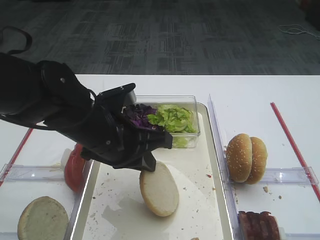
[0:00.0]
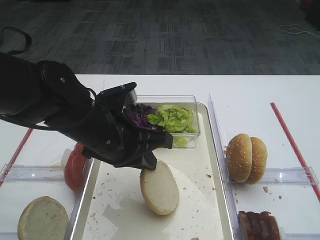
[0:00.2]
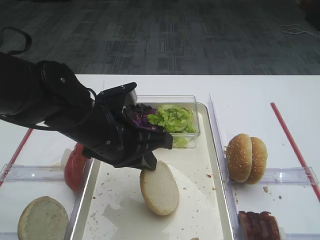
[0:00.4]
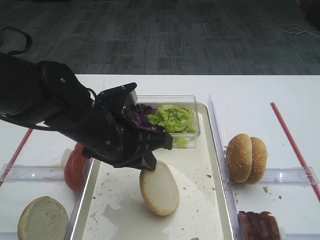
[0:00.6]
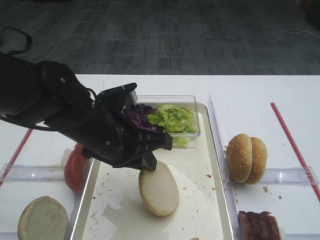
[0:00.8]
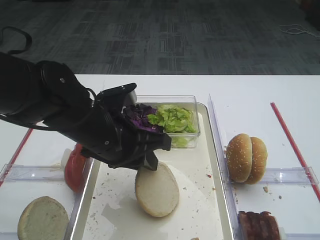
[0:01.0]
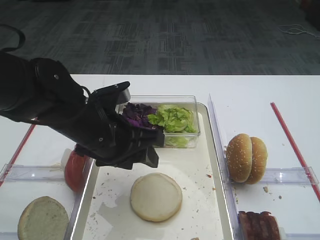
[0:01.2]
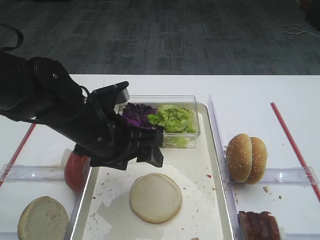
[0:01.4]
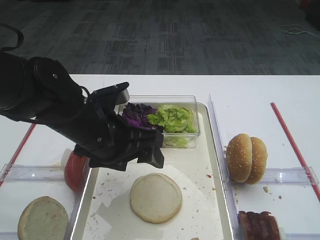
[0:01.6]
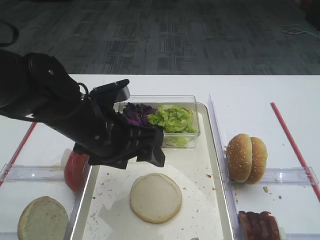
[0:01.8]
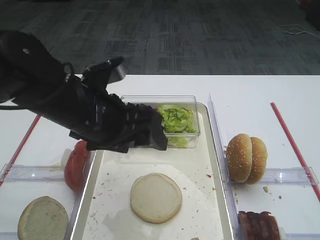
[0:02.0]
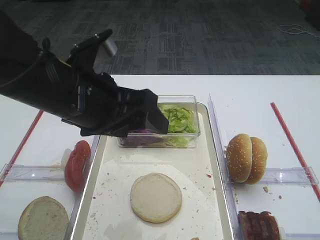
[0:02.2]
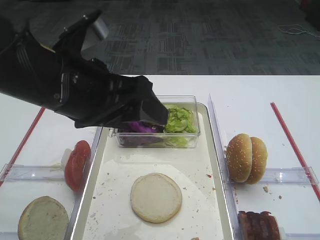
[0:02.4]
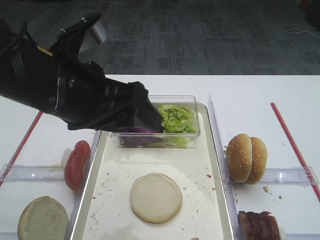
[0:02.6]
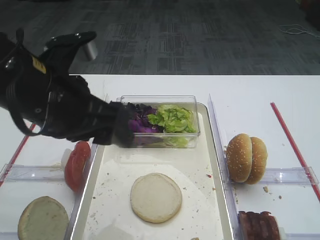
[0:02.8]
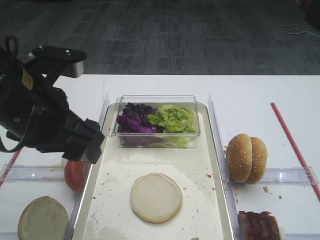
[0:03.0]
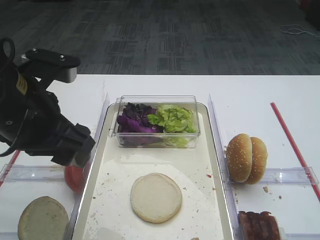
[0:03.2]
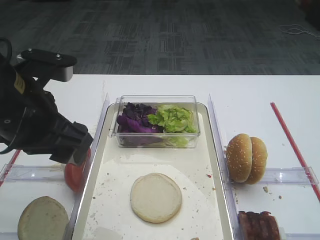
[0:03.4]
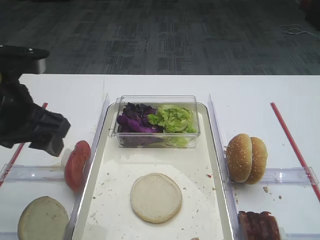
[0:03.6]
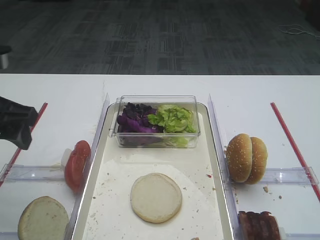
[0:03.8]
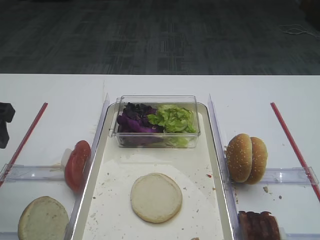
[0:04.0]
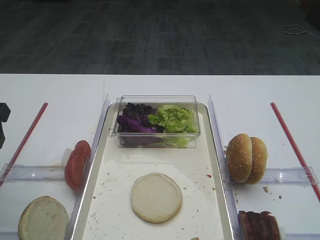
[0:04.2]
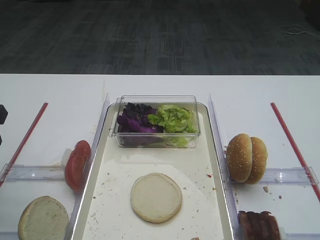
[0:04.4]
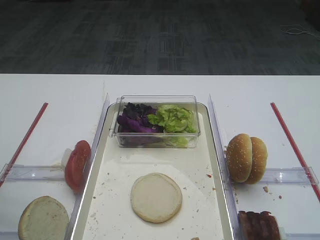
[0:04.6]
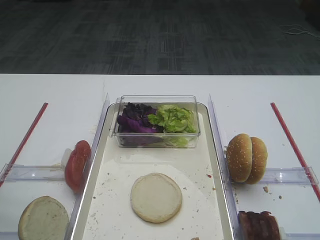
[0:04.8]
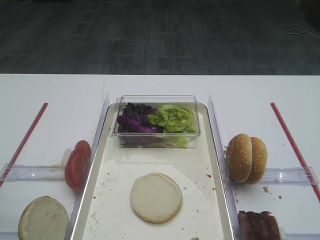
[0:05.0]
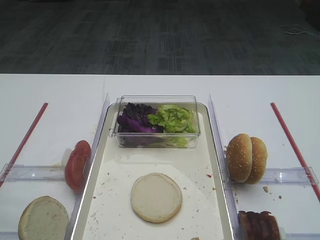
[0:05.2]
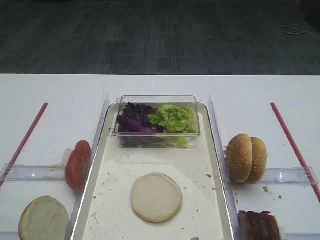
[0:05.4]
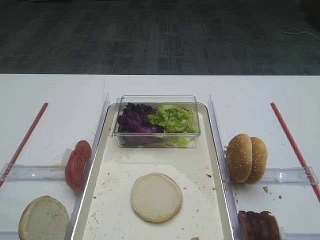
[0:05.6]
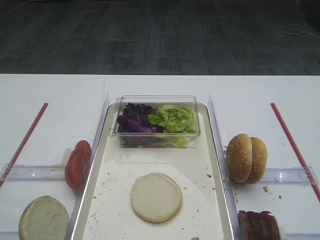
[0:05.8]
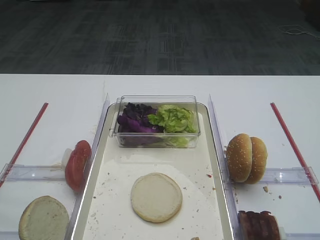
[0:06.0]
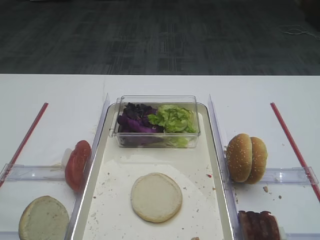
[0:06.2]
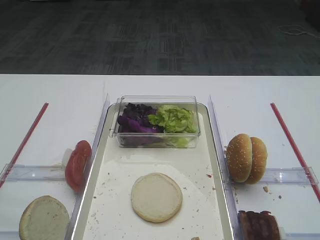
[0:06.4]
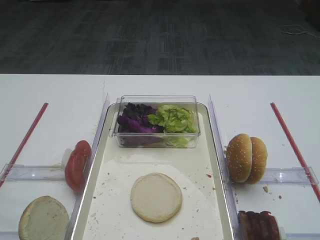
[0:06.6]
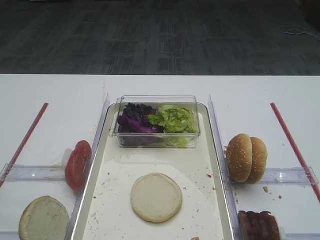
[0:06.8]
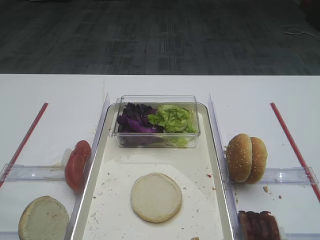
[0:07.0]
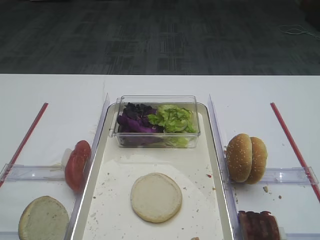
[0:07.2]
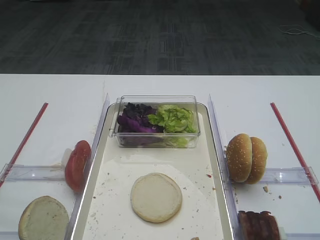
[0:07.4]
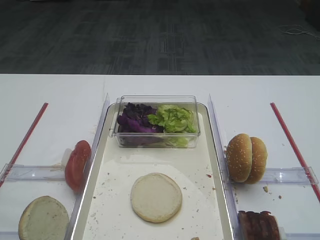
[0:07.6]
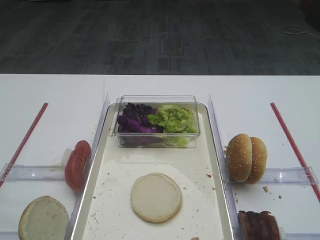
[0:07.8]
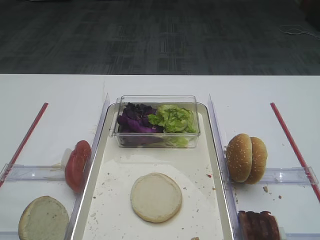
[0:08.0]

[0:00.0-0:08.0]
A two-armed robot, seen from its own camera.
Step, 0.0 to 2.4 s: Place the bread slice on the tray with the left gripper.
0.0 to 1.6 s: The left gripper opens up.
1.6 to 3.2 s: The left gripper is displaced upward and to the left by approximately 10 cm.
3.2 to 4.8 s: The left gripper travels to the left by approximately 15 cm.
4.8 to 6.4 s: The left gripper shifts approximately 20 cm backward.
6.4 to 8.0 s: Both grippers stay about where they are.

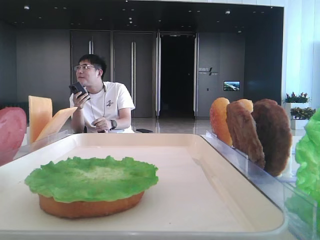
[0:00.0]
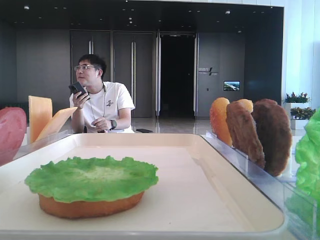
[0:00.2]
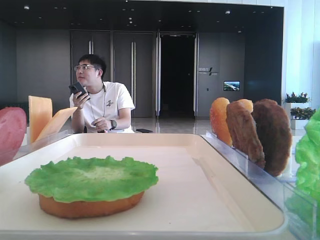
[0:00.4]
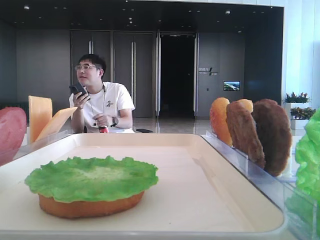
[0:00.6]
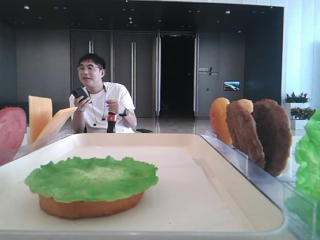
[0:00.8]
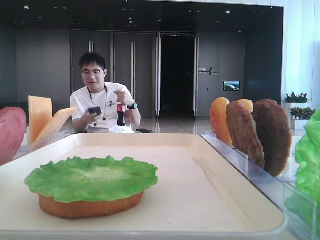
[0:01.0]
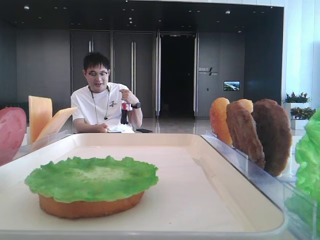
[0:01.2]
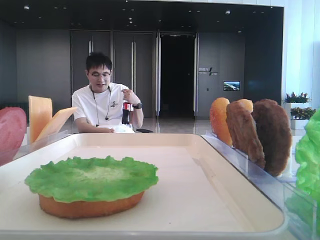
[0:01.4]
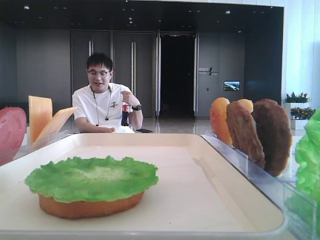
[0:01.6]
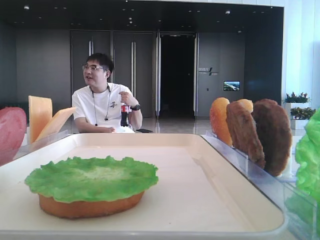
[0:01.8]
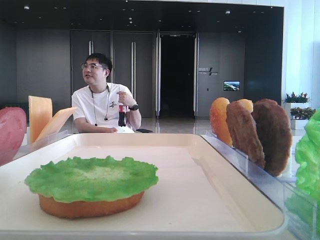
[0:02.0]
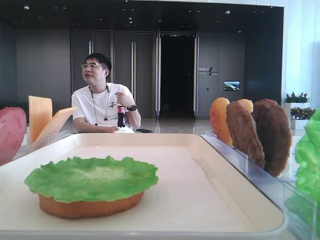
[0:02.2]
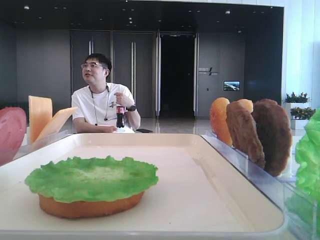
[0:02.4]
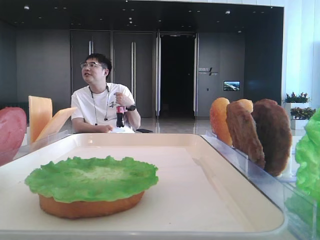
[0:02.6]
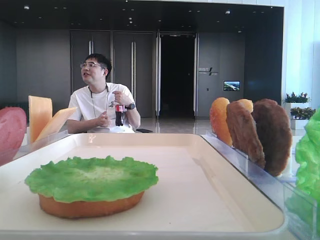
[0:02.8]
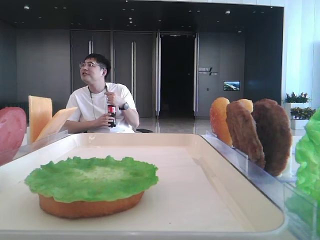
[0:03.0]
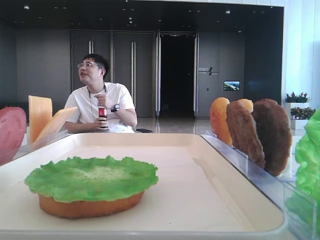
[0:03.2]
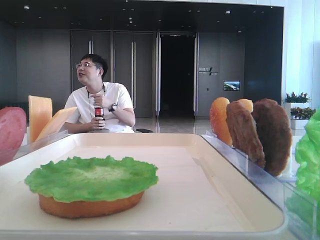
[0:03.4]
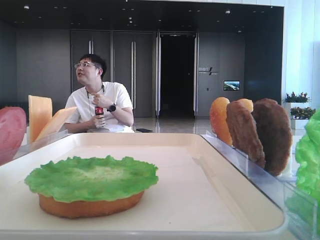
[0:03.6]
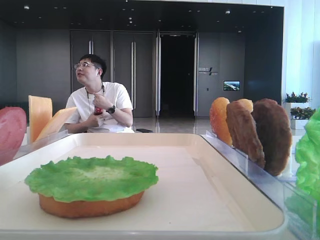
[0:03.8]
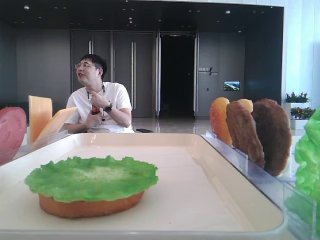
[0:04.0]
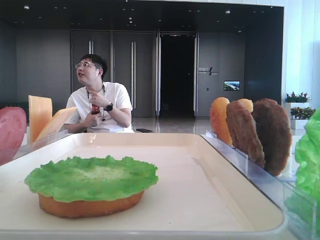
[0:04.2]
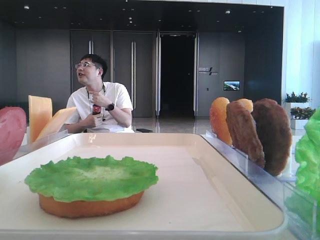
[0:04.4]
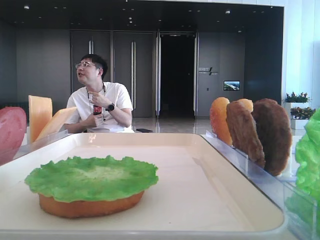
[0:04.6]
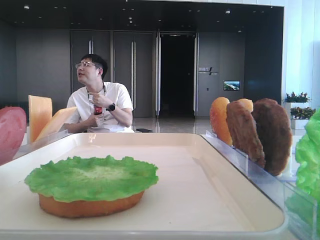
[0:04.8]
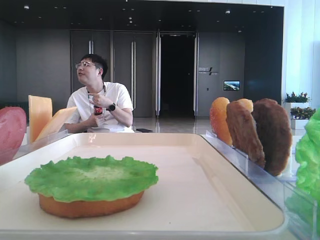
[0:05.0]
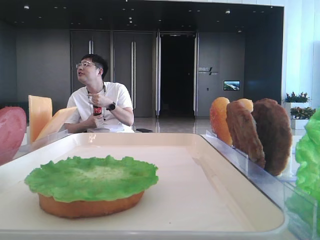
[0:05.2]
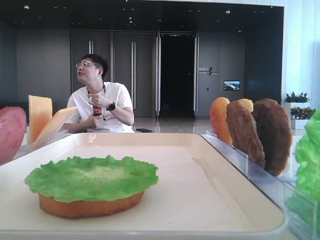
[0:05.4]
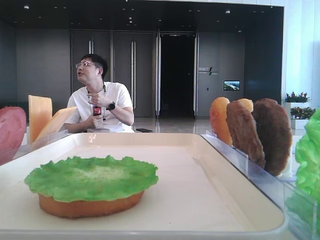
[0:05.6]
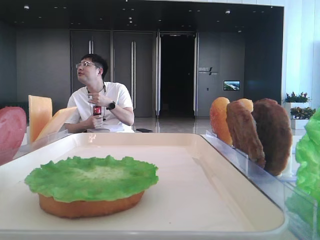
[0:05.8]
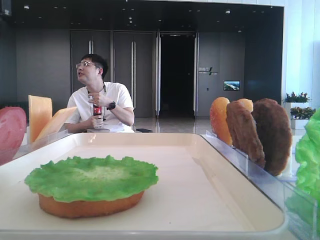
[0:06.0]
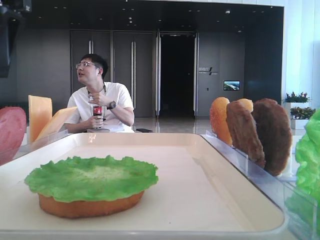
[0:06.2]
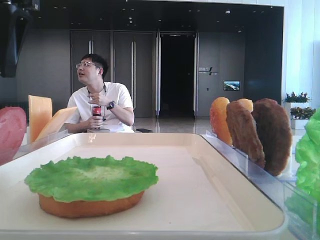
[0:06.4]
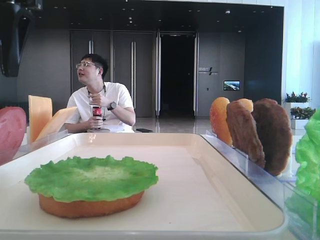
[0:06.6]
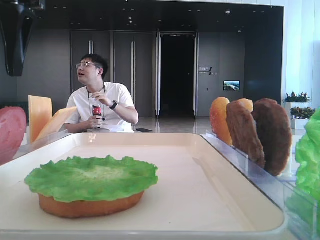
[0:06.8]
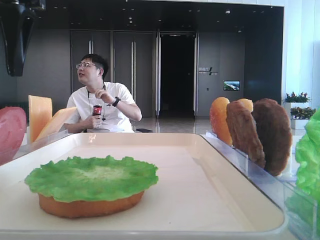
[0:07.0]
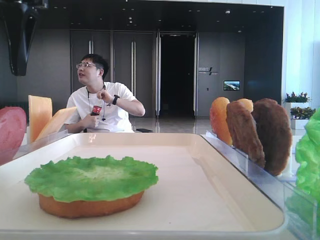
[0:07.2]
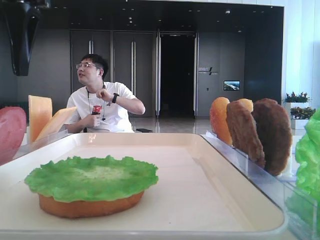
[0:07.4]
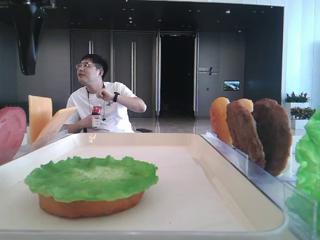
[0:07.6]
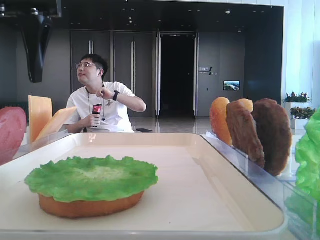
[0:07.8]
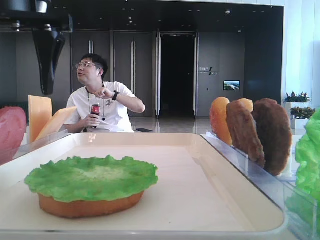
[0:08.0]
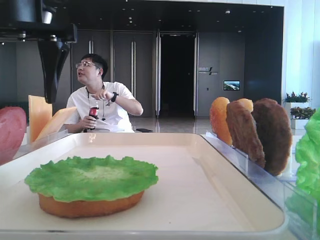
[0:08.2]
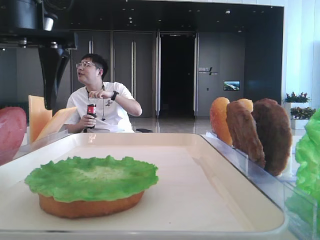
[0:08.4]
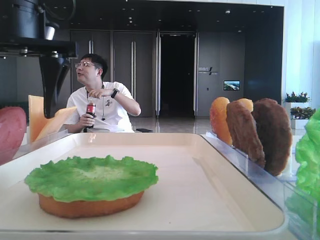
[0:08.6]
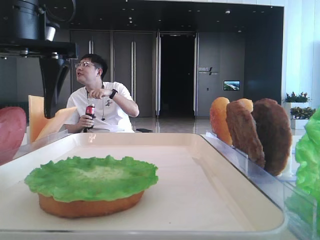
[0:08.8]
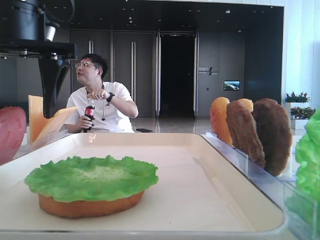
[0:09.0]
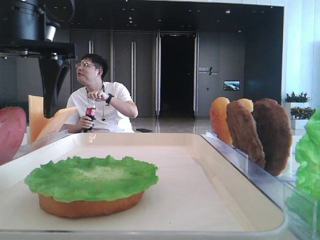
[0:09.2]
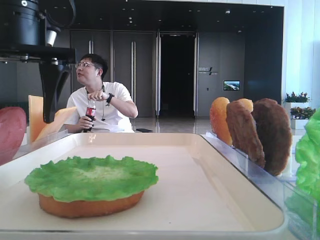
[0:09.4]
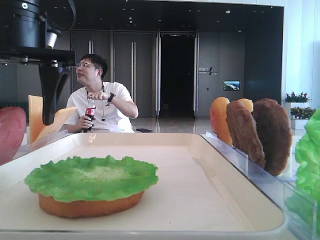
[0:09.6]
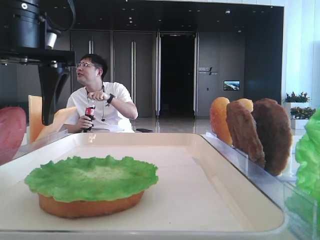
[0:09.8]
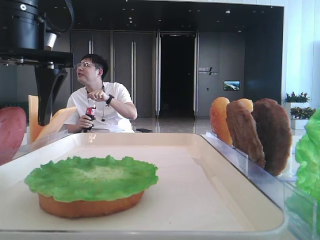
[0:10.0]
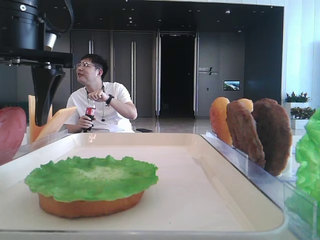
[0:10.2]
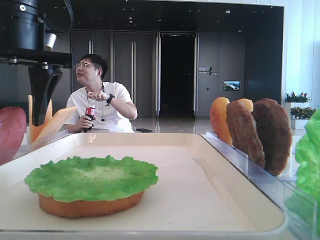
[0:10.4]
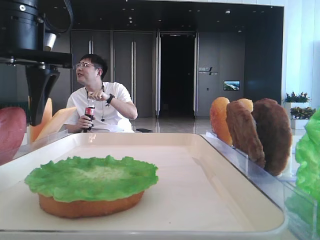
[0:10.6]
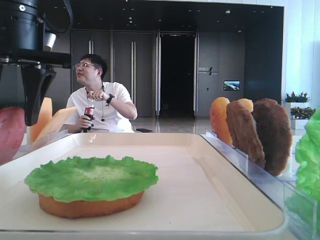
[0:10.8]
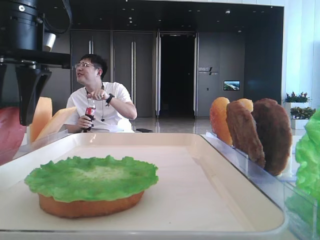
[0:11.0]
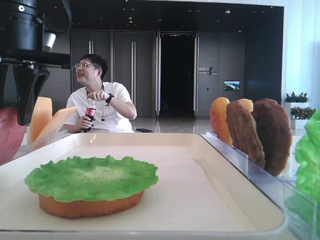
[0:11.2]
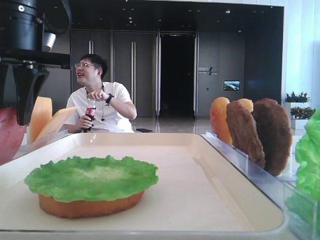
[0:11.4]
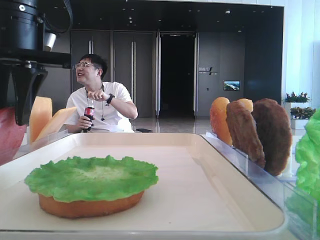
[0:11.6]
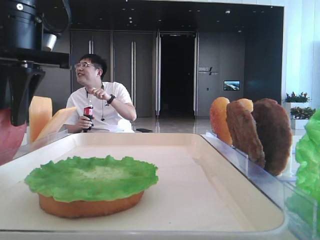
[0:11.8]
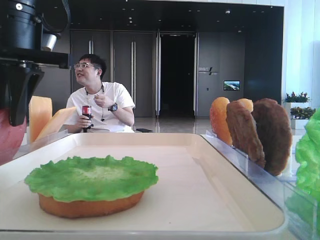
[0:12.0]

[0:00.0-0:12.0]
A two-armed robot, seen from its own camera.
1.6 to 3.0 s: The left gripper shifts roughly 10 cm forward.
3.0 to 4.4 s: The left gripper moves forward, roughly 20 cm.
4.4 to 6.0 s: The left gripper goes roughly 10 cm to the right.
6.0 to 7.6 s: The grippers move only a little.
7.6 to 9.0 s: The left gripper moves approximately 5 cm.
9.0 to 10.4 s: Both grippers stay about where they are.
10.4 to 12.0 s: The left gripper closes its fingers.

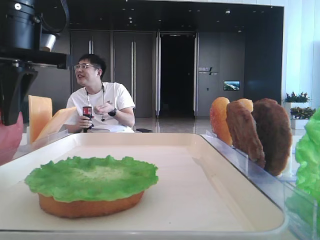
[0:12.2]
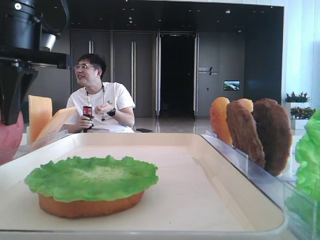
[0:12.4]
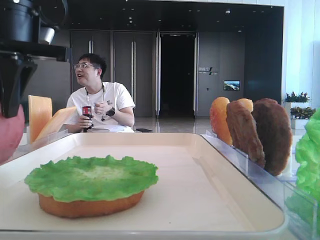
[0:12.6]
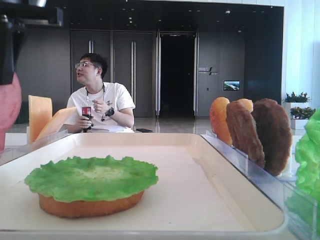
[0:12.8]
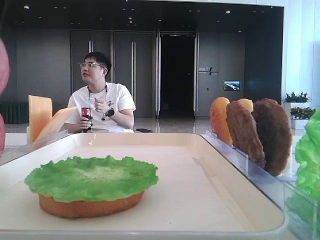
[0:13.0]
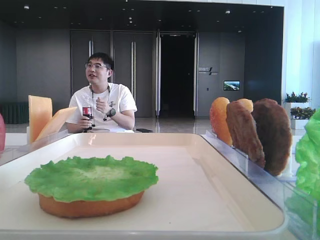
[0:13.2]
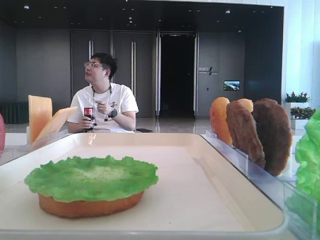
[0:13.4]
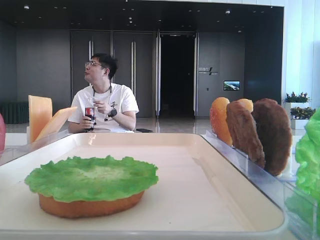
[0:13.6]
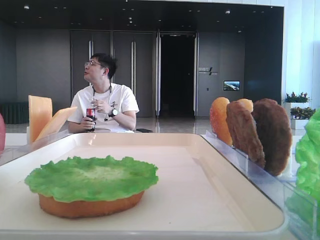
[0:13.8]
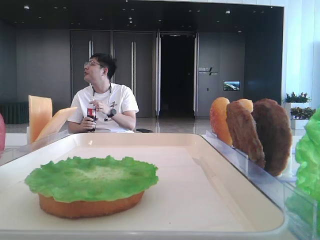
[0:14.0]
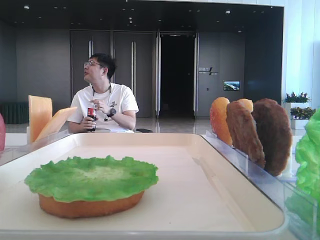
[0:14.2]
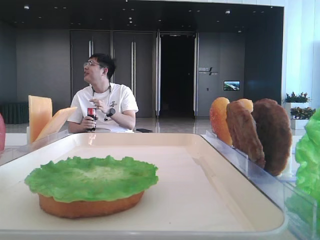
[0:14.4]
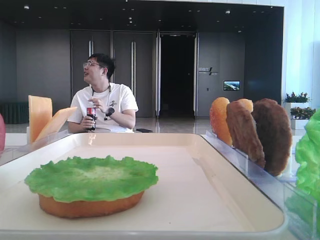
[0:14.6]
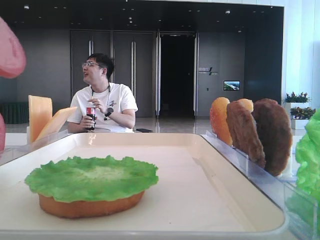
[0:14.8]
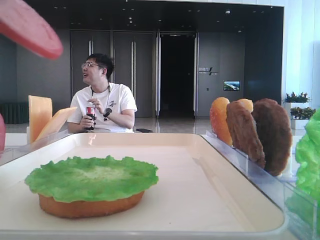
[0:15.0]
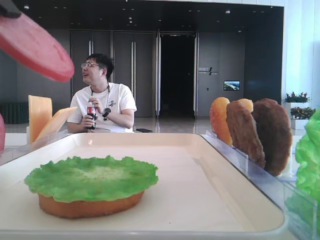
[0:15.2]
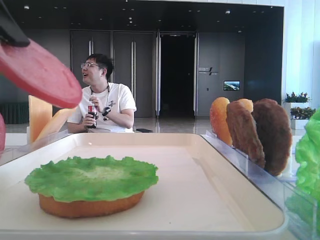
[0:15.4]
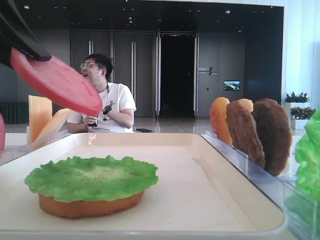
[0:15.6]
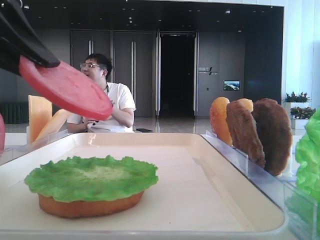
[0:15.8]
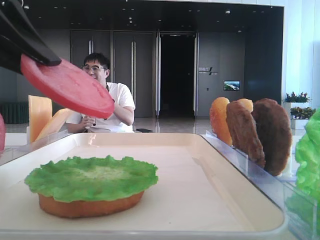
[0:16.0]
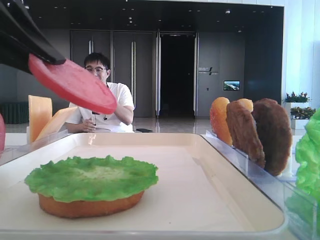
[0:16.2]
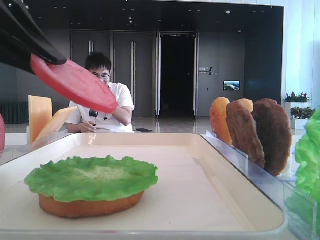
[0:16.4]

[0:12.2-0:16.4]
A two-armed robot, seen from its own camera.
12.2 to 13.6 s: The left gripper is displaced upward and backward by about 15 cm.
13.6 to 15.0 s: The left gripper is displaced downward by roughly 5 cm.
15.0 to 16.4 s: The left gripper travels downward by roughly 5 cm.
